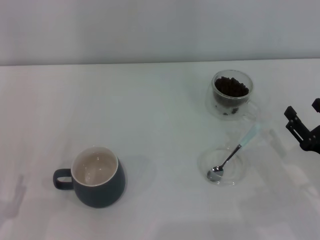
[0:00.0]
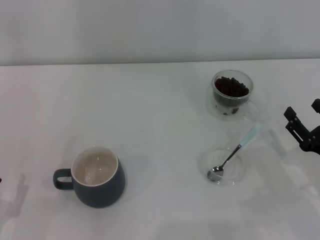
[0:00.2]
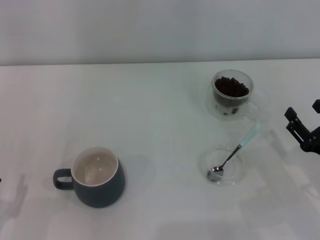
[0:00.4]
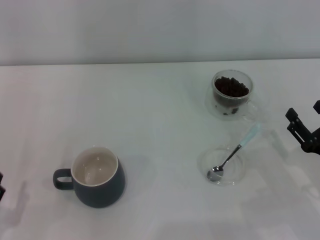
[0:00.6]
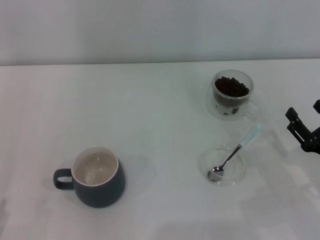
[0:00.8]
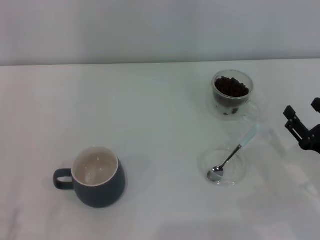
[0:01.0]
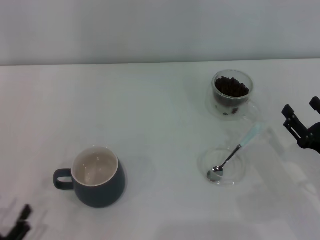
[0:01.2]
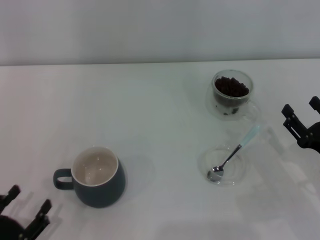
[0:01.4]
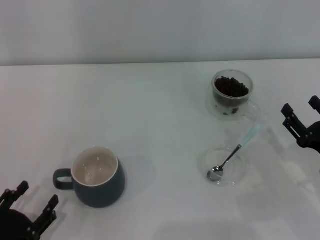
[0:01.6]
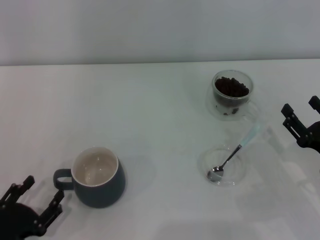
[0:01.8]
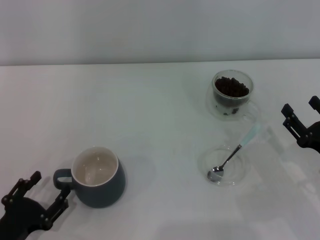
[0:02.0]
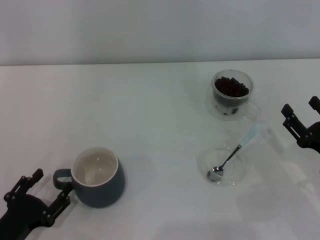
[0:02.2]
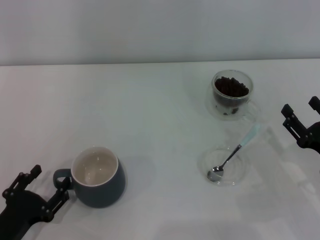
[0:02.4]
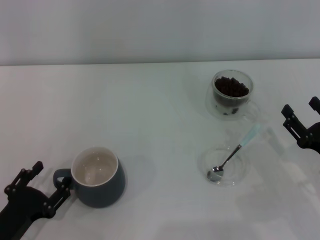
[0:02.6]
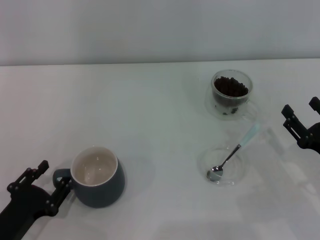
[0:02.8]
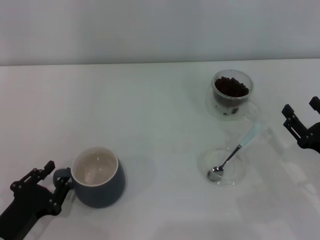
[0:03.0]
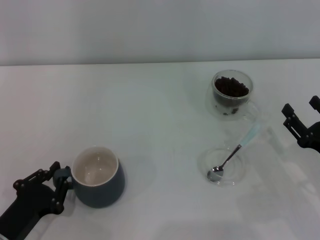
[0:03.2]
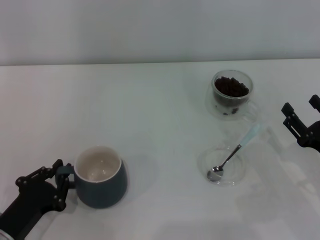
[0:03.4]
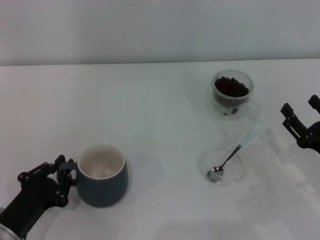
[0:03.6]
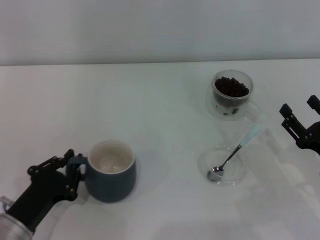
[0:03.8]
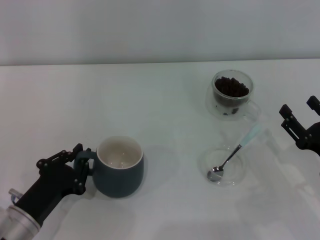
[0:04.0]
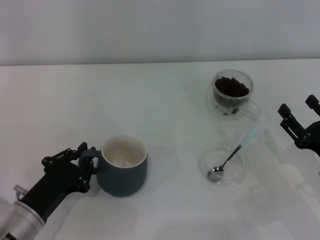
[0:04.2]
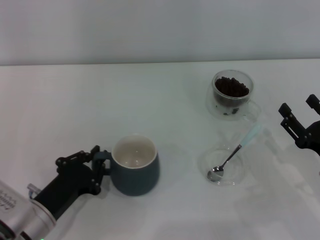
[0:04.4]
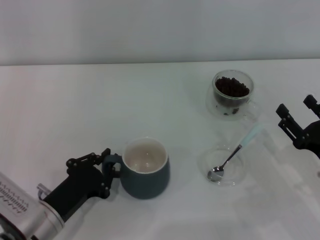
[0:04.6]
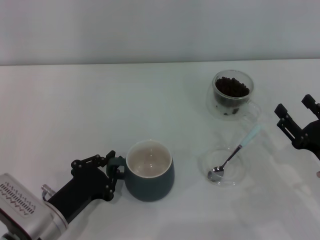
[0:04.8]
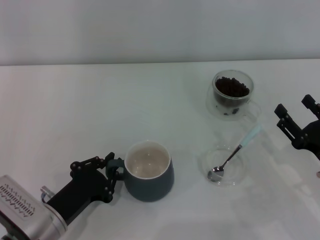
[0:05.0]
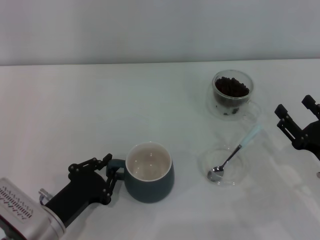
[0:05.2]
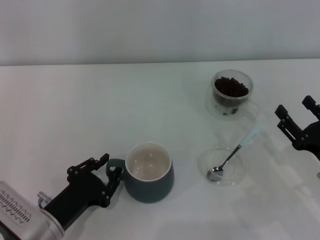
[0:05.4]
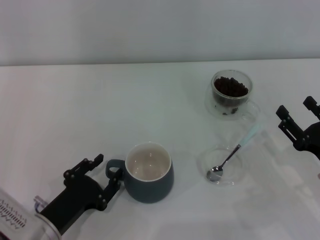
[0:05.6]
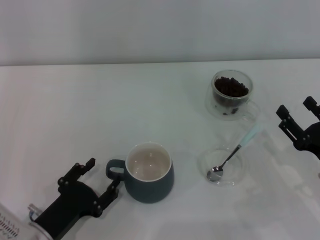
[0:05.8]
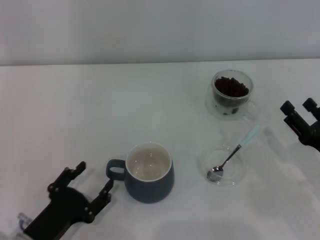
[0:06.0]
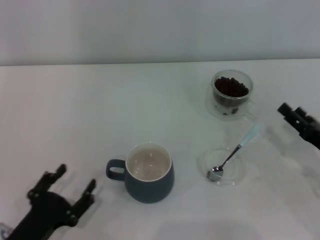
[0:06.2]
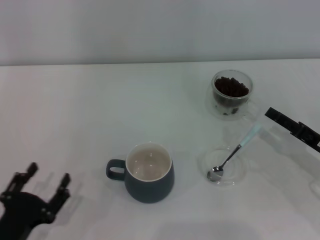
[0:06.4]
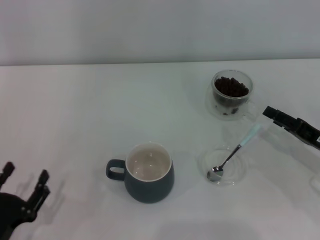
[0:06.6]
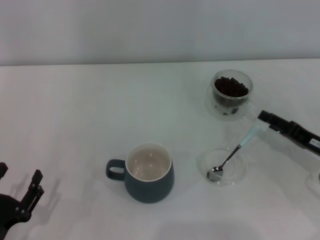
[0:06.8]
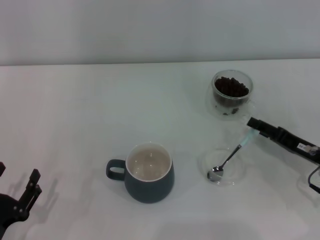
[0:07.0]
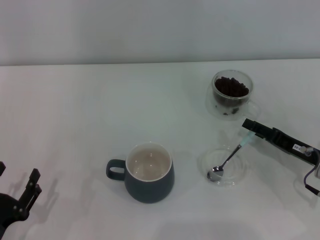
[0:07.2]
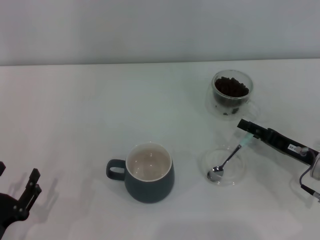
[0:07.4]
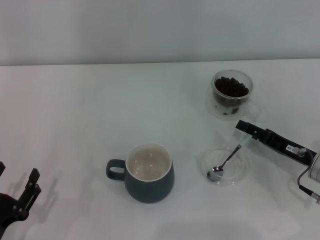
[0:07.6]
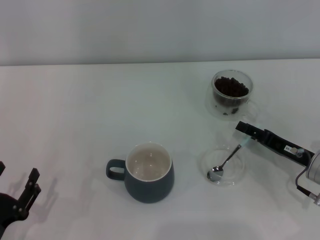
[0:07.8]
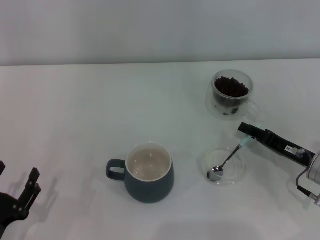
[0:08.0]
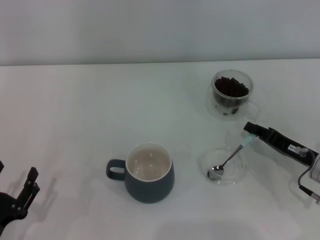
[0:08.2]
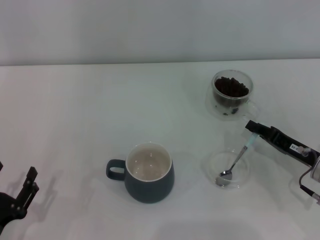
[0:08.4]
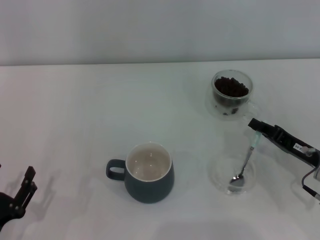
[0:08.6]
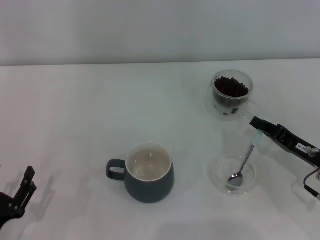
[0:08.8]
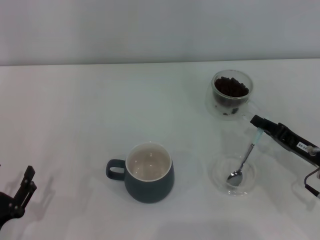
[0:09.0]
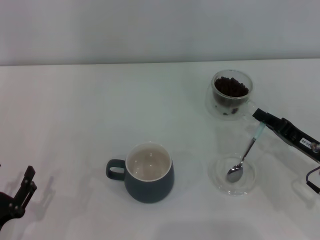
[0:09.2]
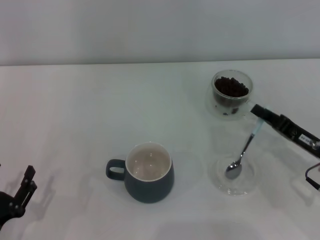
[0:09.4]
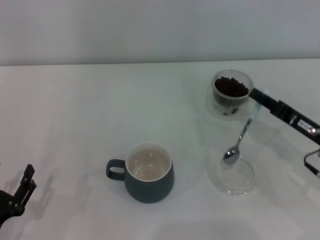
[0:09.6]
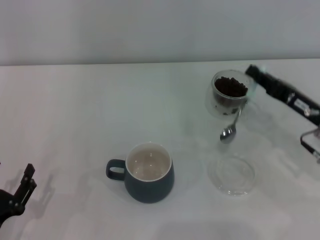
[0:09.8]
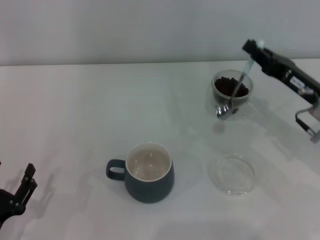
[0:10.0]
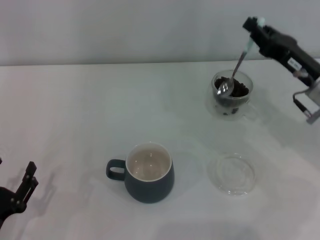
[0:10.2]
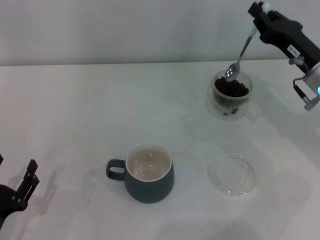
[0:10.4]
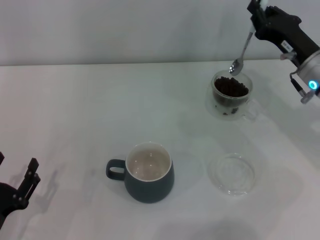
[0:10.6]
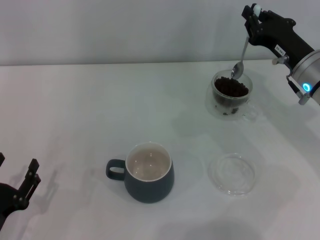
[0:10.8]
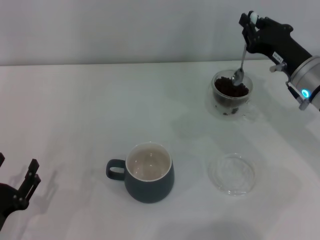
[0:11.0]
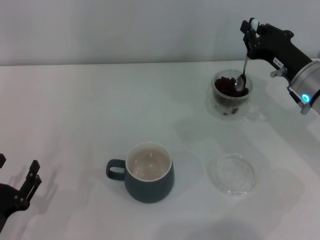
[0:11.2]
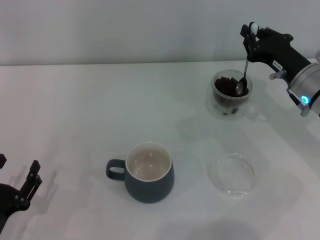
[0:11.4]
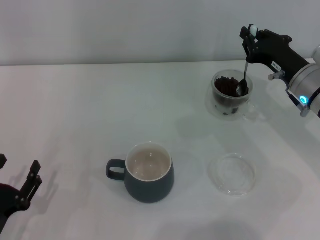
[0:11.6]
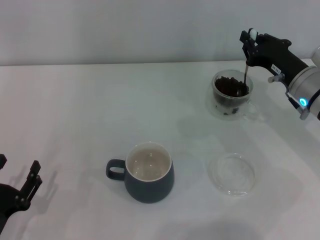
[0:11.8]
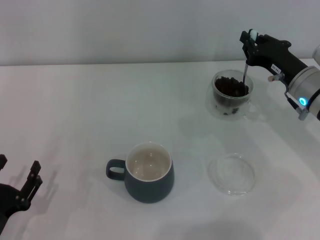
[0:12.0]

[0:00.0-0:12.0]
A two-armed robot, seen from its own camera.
Task of the whole recording: Use a blue spoon to take out the coffee beans from the glass and pour them into the gray cup.
Step, 0.0 to 6.0 s: Move the cup to the center of view with the left gripper.
Step, 6.2 to 9.6 s: Pick up the spoon with the right gripper.
1.6 to 3.0 s: The left gripper changes place by roughly 5 cm.
3.0 to 4.4 s: The left gripper moves roughly 5 cm, and closes its fingers.
4.4 to 6.0 s: The left gripper opens.
6.0 to 7.6 s: The left gripper moves to the left, about 5 cm. Meanwhile the right gripper goes some 5 cm forward.
7.6 to 9.0 s: The right gripper closes up.
9.0 to 10.4 s: The right gripper is displaced forward and upward by approximately 15 cm.

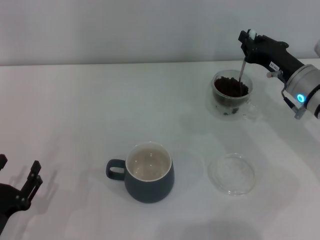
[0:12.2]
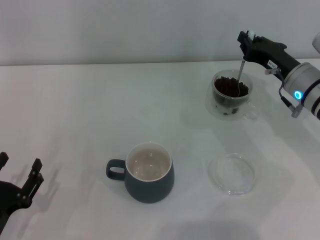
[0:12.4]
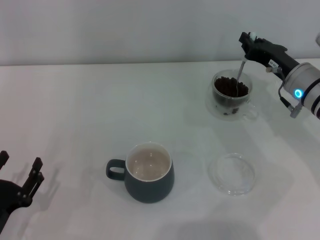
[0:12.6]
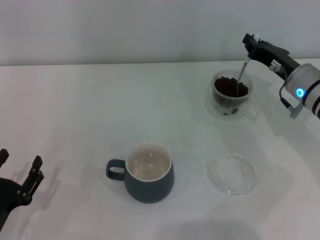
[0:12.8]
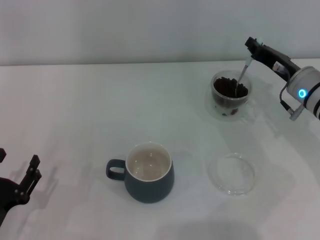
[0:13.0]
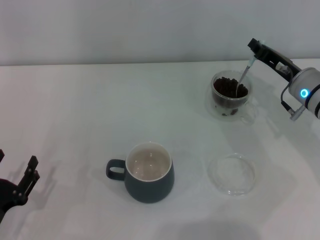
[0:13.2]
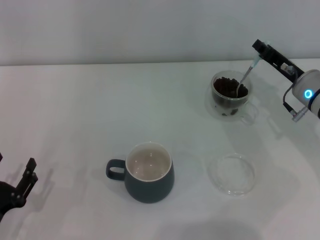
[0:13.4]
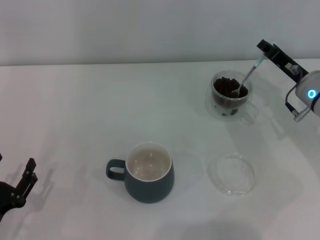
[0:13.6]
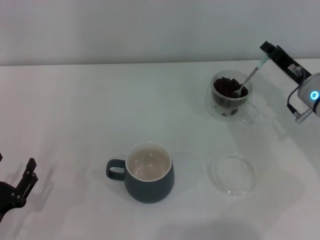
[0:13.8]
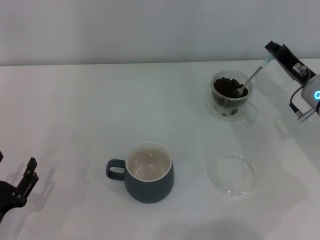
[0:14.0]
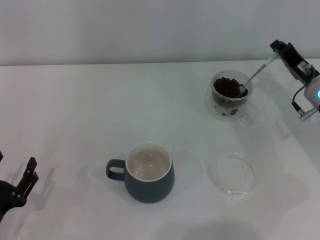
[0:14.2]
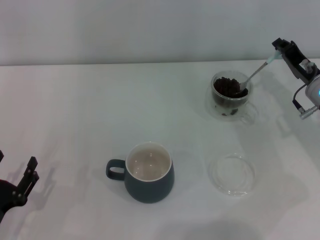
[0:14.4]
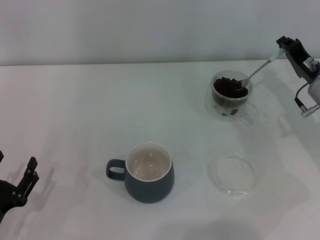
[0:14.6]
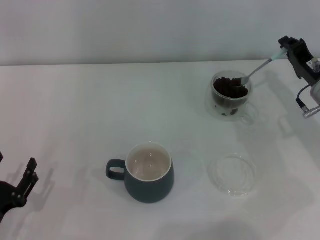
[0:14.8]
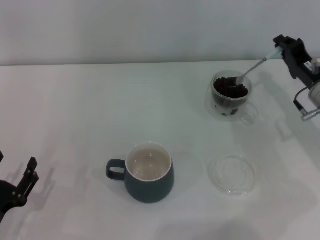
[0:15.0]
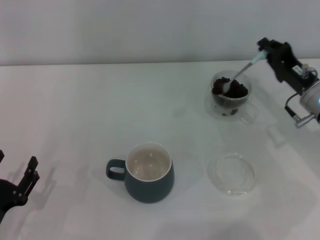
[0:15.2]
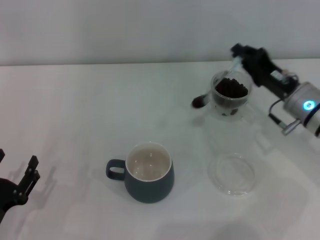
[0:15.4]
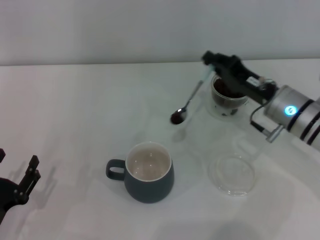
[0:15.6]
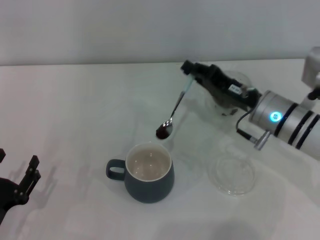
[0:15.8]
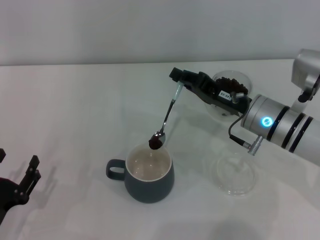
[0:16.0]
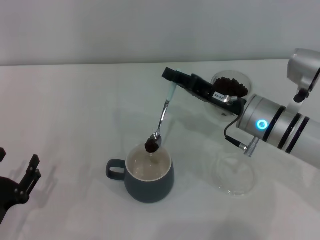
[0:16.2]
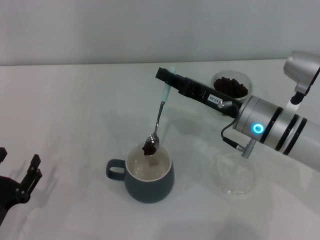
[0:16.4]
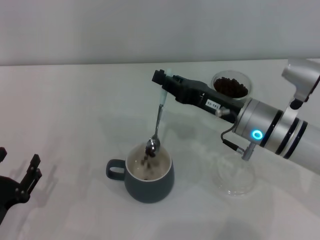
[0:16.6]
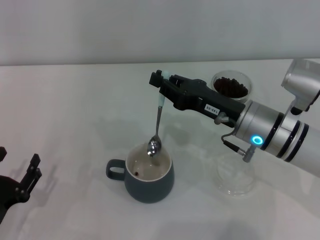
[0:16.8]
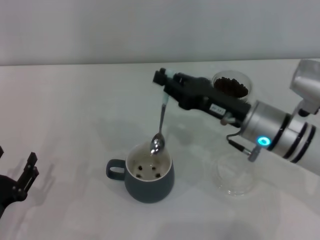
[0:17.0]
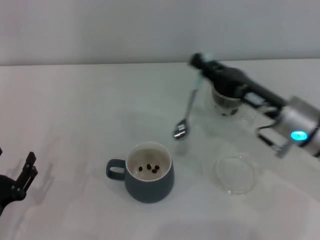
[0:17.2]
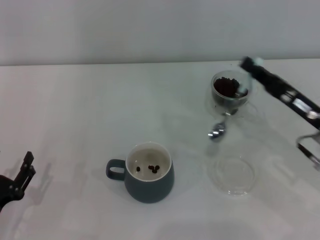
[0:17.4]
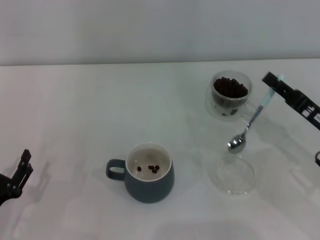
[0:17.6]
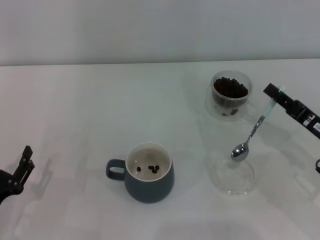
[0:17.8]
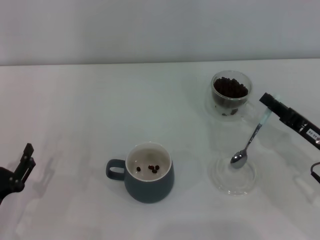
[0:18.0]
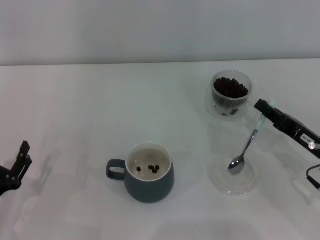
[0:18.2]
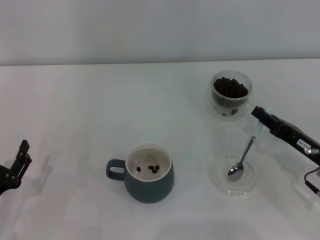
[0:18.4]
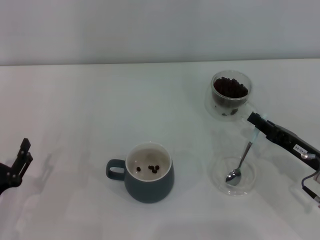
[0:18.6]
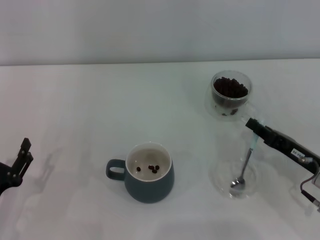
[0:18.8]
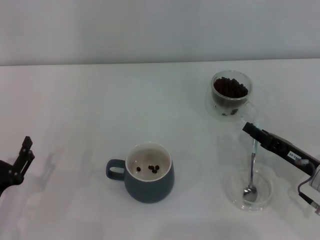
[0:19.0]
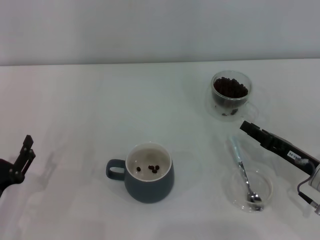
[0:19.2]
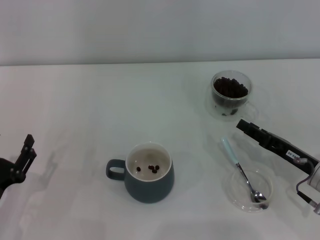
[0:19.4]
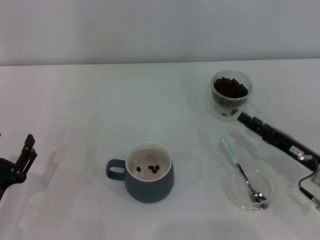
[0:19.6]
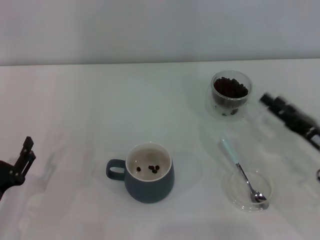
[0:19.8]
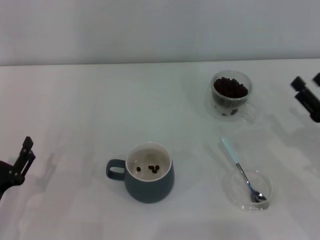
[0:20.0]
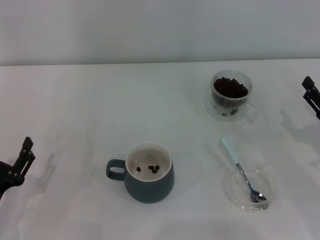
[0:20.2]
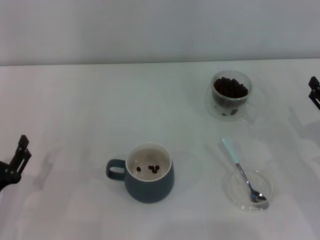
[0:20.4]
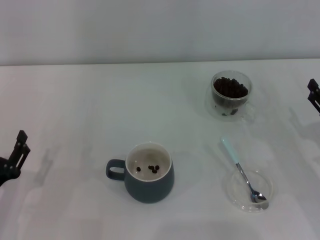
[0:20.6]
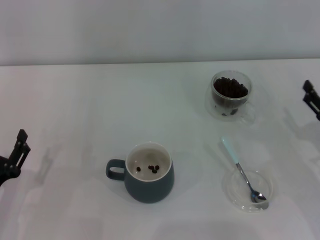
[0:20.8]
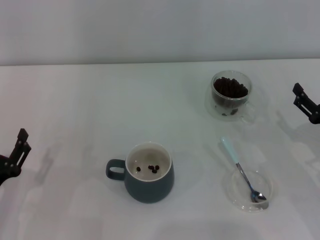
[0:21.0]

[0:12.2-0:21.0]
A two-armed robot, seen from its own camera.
Task of the whole recording: Use a blue spoon to take out the coffee beans from the glass and pour them into the gray cup.
Step, 12.2 to 16.6 s: Scoop a spoonful of beans into the cup with the right gripper.
Step, 16.8 to 19.0 s: Place the spoon back in its original place with the right gripper.
15.2 to 16.6 s: The right gripper moves to the left, some 10 cm.
16.6 to 18.0 s: The right gripper is displaced to the right, backward and downward by roughly 15 cm.
18.0 to 19.6 s: The right gripper opens its fingers.
19.6 to 21.0 s: The right gripper opens its fingers.

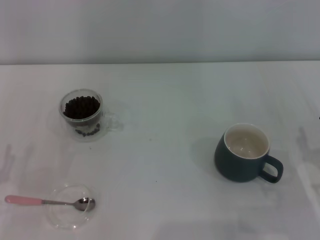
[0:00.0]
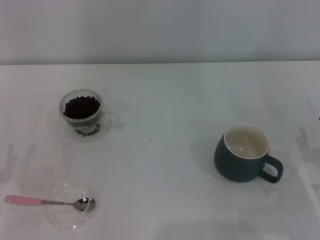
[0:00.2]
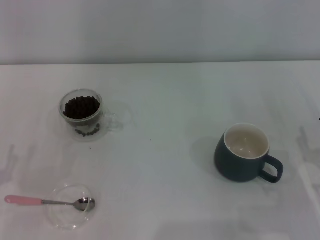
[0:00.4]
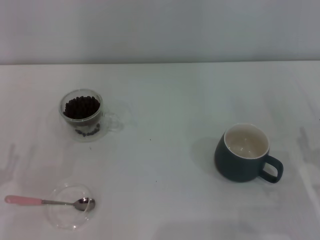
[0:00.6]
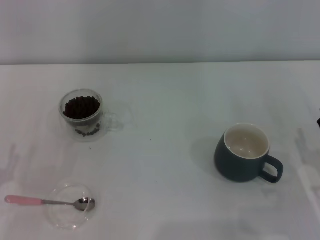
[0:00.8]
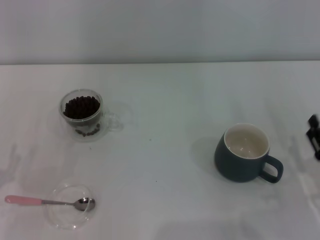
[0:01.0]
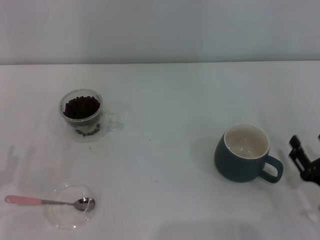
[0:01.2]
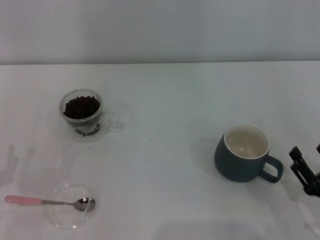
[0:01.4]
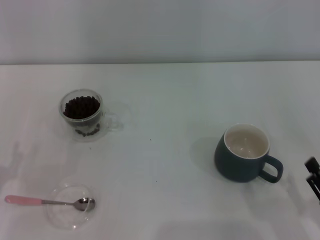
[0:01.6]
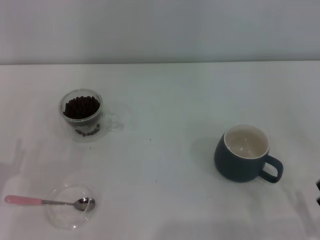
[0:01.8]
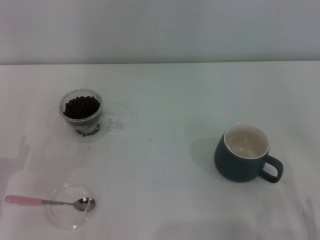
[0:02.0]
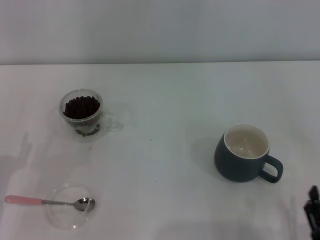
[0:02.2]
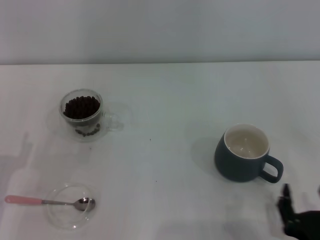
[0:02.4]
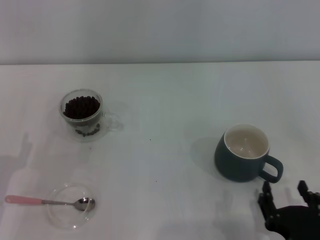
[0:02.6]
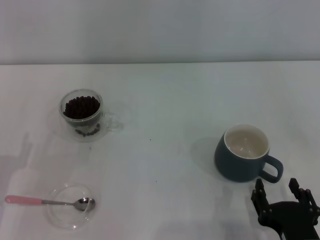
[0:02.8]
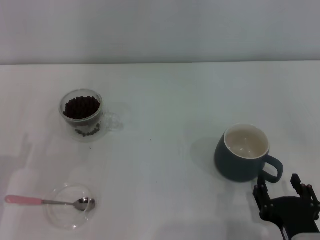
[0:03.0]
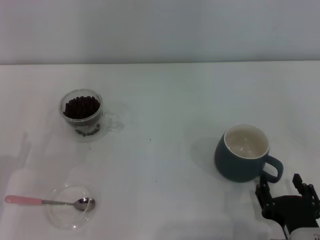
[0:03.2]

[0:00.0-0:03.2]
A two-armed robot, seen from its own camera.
Task of the whole recording: Use a pink spoon to take out the coffee beans from the glass and pour them into the gray cup.
1.6 to 3.2 s: The right gripper goes some 10 cm to the left.
